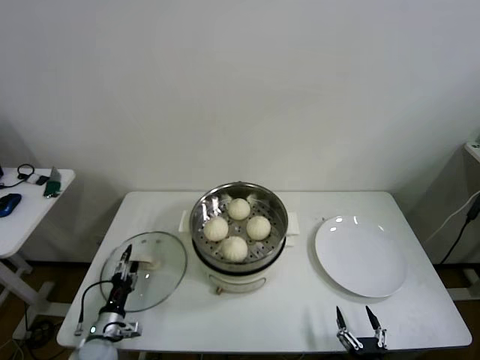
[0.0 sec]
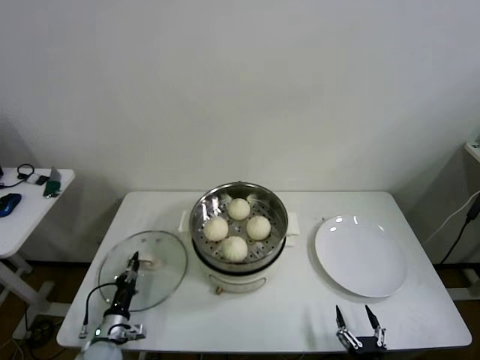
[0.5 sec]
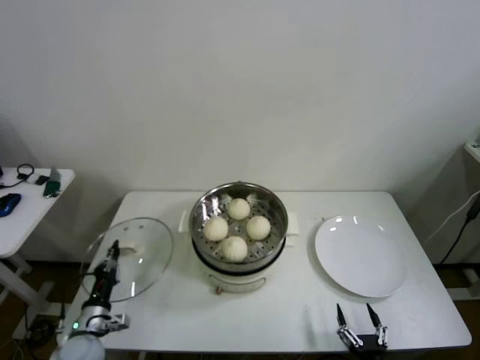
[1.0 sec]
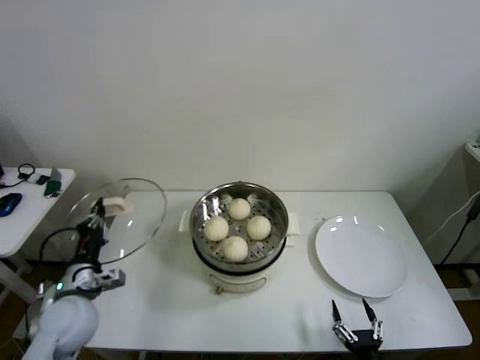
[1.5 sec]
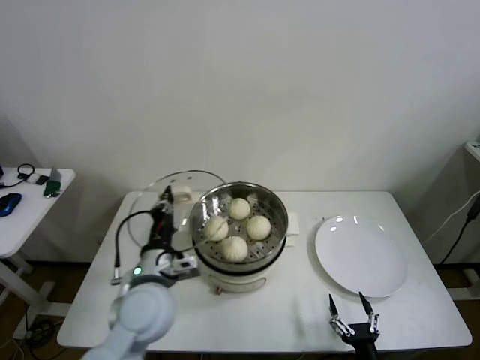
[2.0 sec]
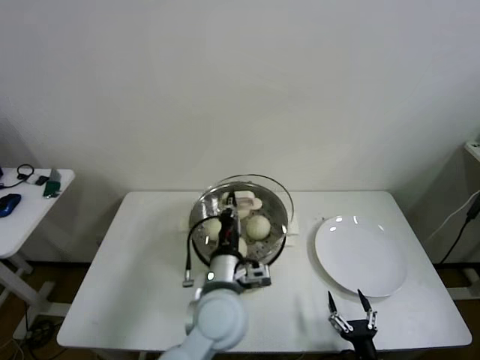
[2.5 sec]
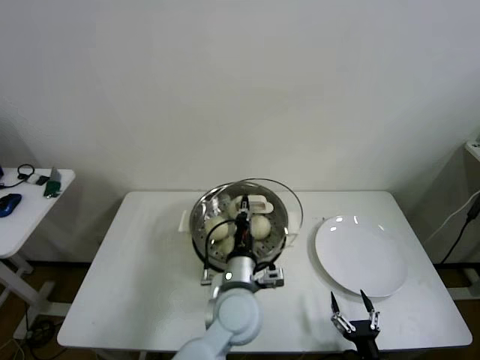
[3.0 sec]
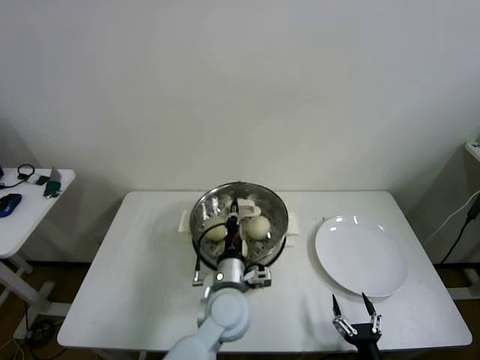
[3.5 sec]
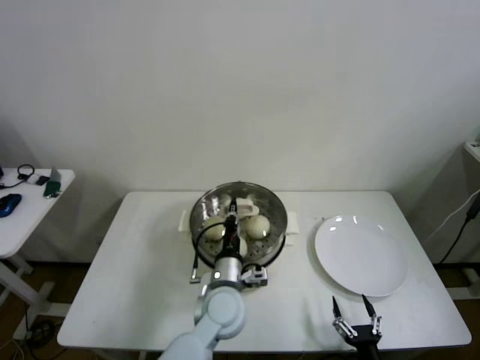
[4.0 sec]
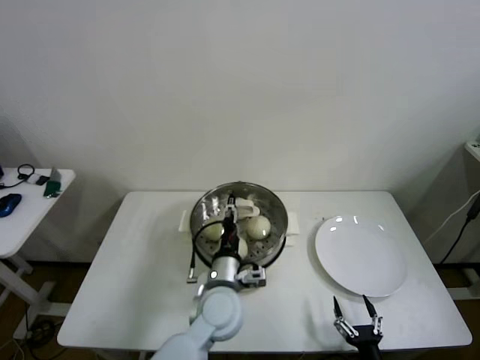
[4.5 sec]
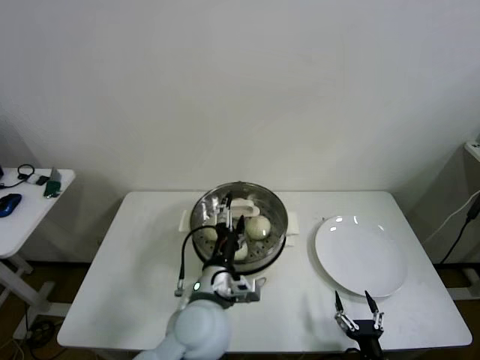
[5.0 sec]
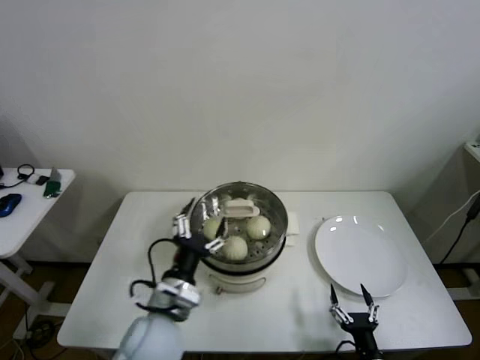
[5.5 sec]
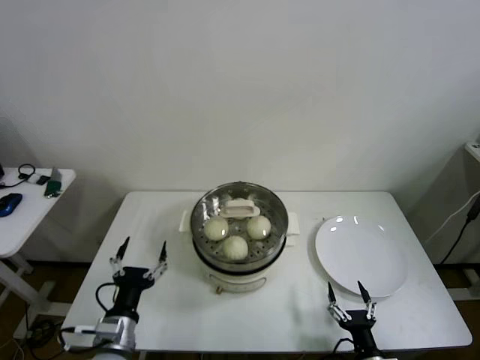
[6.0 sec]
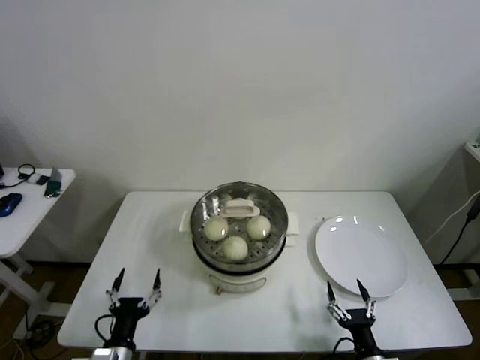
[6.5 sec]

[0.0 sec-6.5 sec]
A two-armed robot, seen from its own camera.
Step, 1.0 sec to 4.0 sec: Place the pot lid on the steamer with left gripper.
0.0 sec to 2.0 sec: The left gripper shifts approximately 30 cm upward and to the right, and closes its fingers.
2.0 sec to 4.5 sec: The left gripper moves to the right and downward, roughly 15 cm, and opens.
4.5 sec to 6.5 sec: The left gripper goes about 25 cm to the left and backward, and opens.
